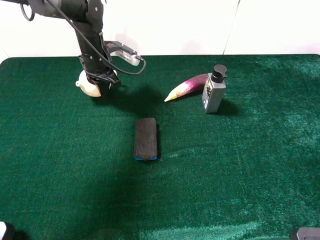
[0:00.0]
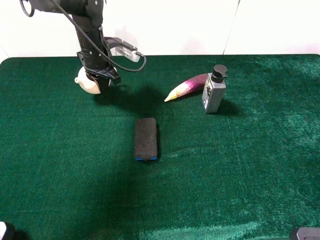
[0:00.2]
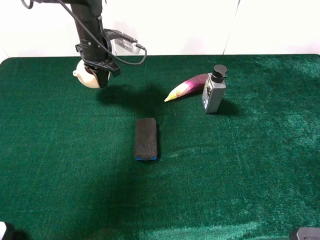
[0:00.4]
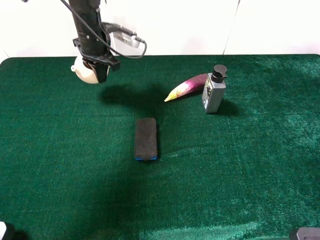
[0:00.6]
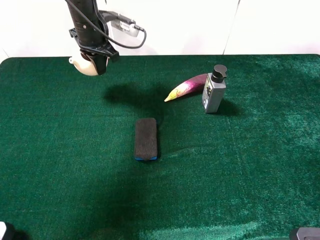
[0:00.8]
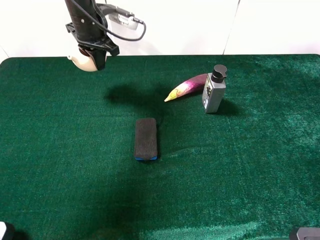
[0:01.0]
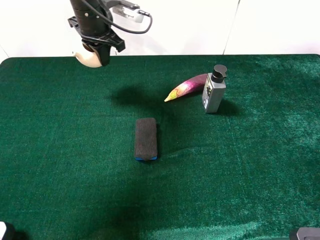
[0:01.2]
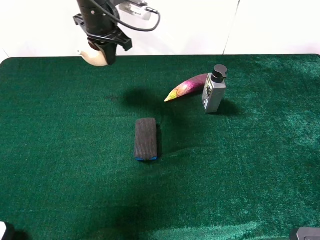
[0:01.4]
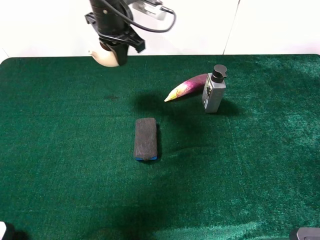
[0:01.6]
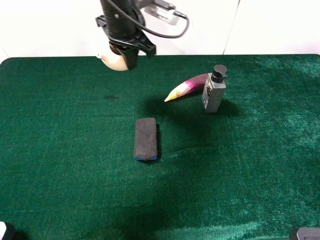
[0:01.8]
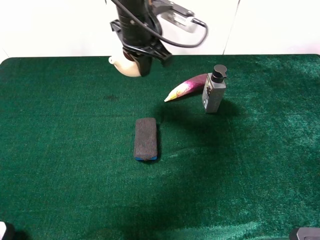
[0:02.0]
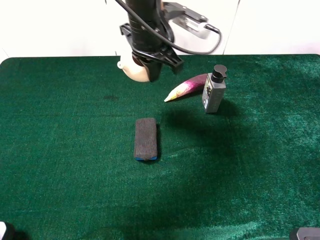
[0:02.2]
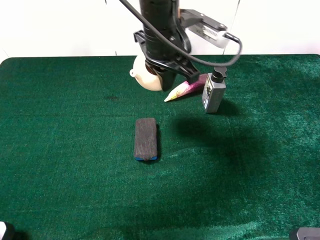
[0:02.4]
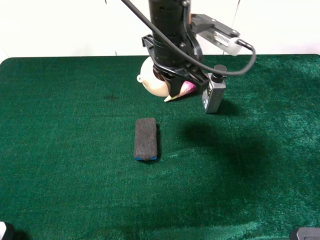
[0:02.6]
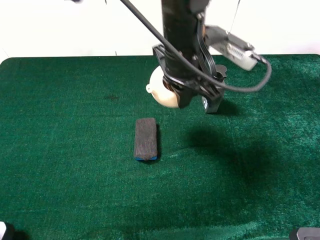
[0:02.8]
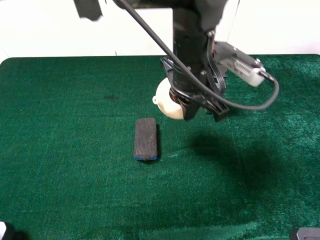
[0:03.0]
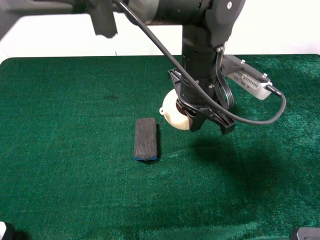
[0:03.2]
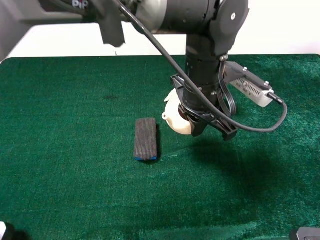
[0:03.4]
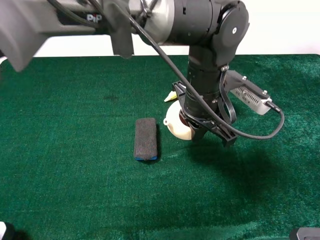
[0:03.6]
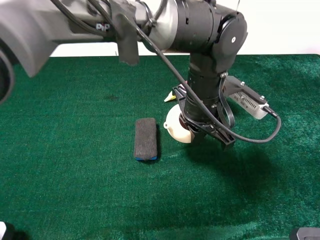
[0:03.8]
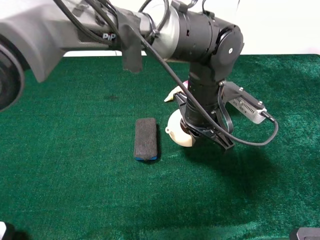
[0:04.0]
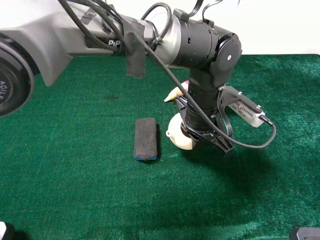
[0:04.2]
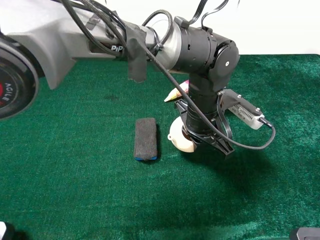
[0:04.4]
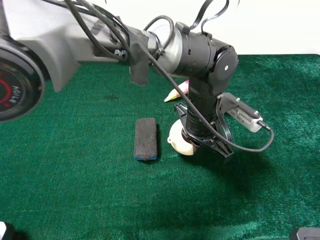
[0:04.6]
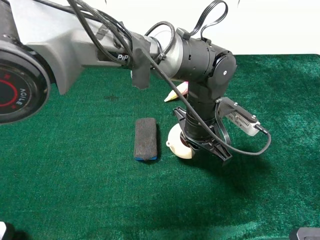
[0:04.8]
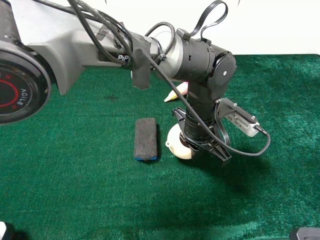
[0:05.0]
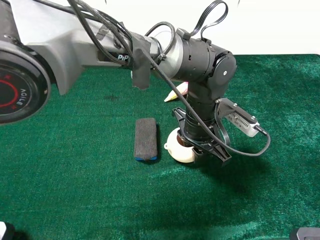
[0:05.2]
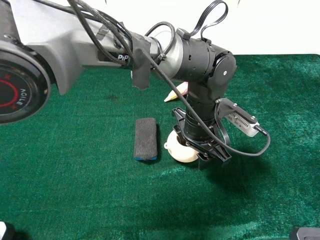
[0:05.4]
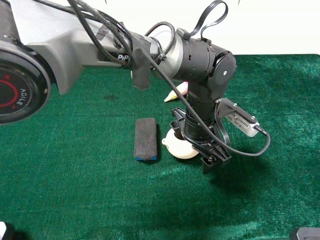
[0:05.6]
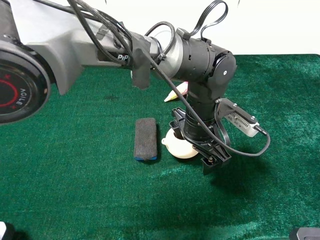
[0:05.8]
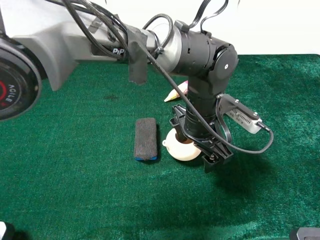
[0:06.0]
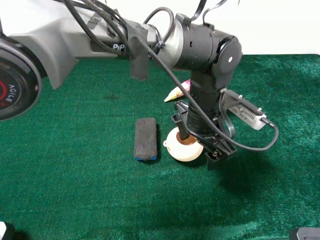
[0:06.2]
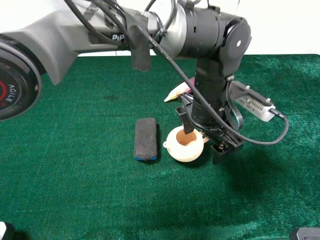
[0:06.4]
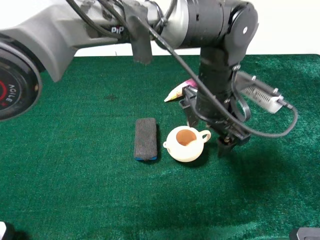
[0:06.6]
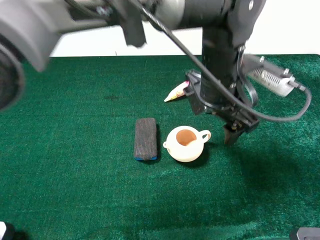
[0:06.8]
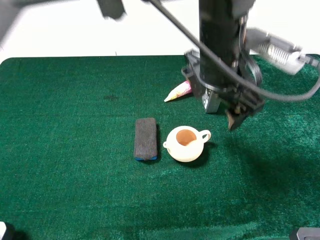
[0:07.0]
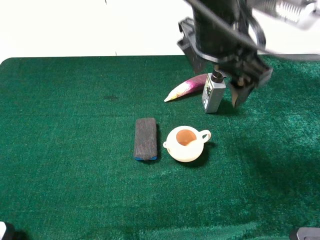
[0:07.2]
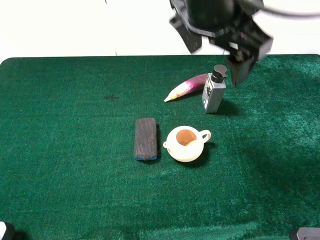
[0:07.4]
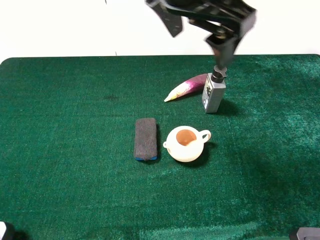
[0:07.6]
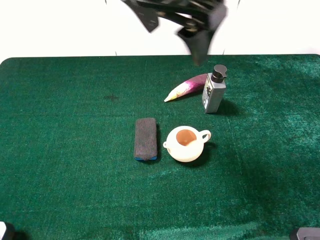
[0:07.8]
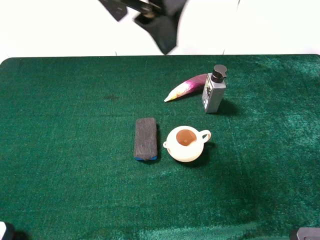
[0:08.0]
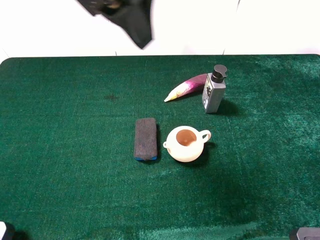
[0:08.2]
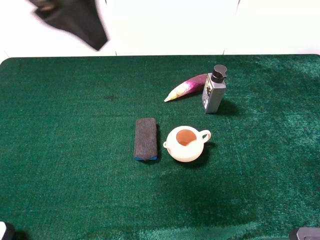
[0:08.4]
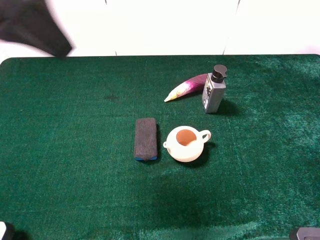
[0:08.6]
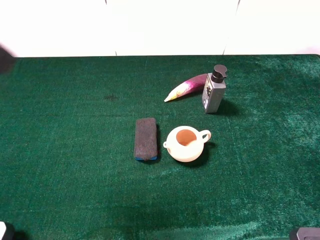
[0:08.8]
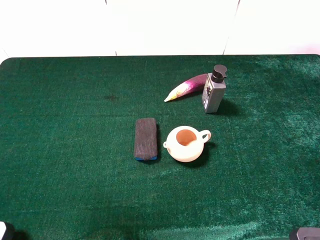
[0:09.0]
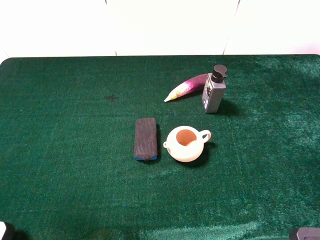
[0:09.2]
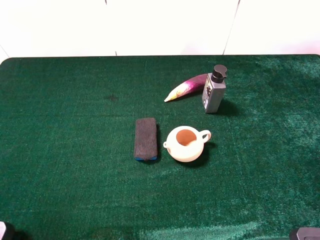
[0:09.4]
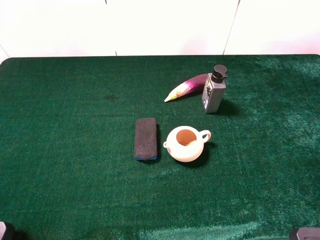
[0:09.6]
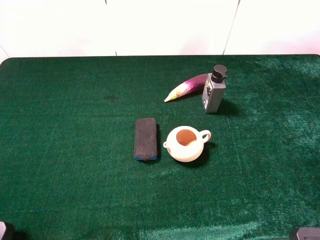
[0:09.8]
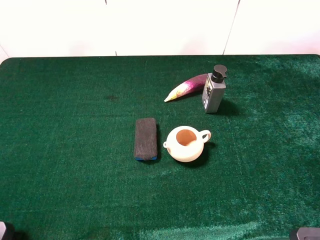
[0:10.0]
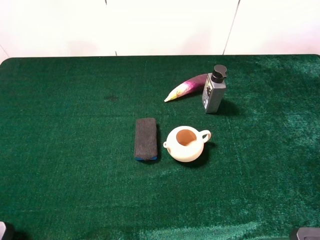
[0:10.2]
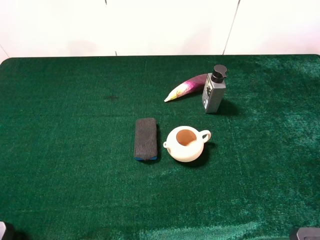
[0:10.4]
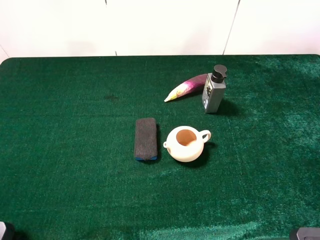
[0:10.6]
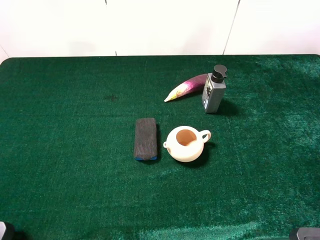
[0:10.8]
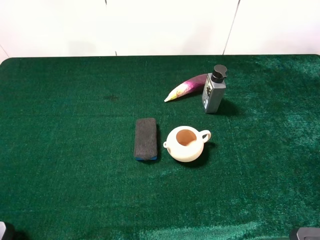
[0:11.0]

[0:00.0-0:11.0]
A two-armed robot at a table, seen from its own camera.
Task of the whole recording: the gripper move the object.
Step, 0:00.0 to 0:05.4: Place the blue blackboard earser on the table with the left gripper.
0:00.0 to 0:01.6: The left gripper shifts some 15 cm upward and to the right.
0:01.6 to 0:03.2: The left gripper shifts roughly 20 cm to the right and backward.
0:03.2 to 0:04.8: The left gripper heads downward, covering about 10 cm.
0:04.8 to 0:06.2: The left gripper opens.
0:06.2 to 0:07.8: The left gripper goes some 25 cm upward and to the left.
0:07.8 to 0:09.4: The left gripper travels to the left and backward by roughly 35 cm.
